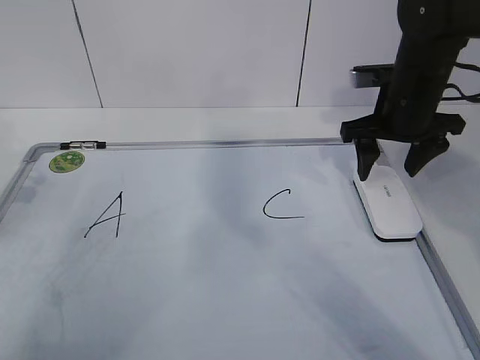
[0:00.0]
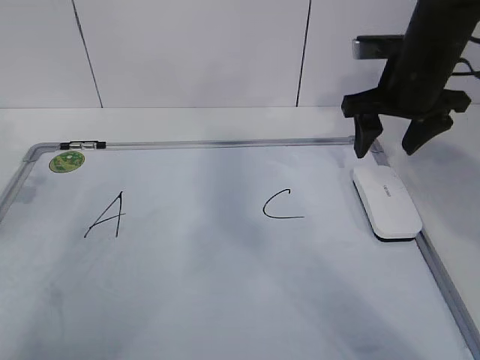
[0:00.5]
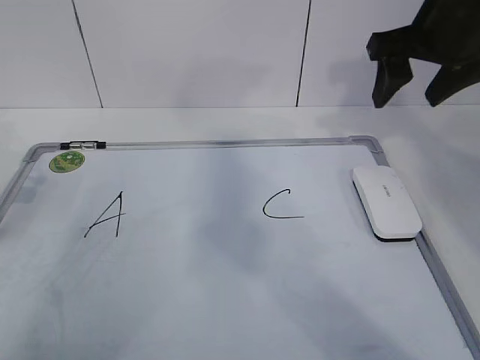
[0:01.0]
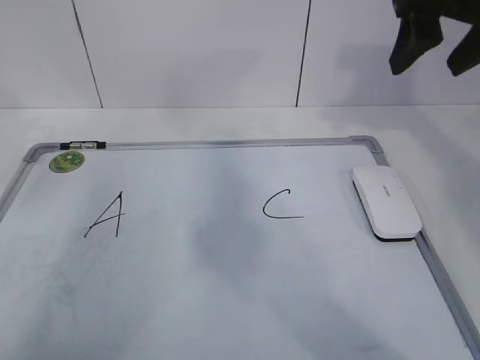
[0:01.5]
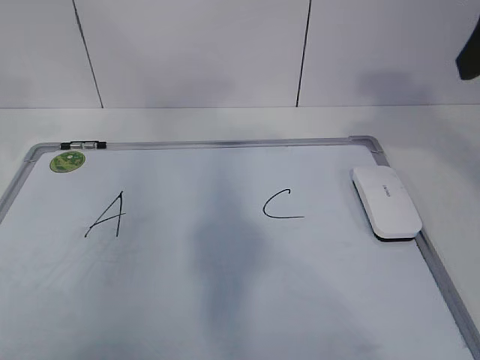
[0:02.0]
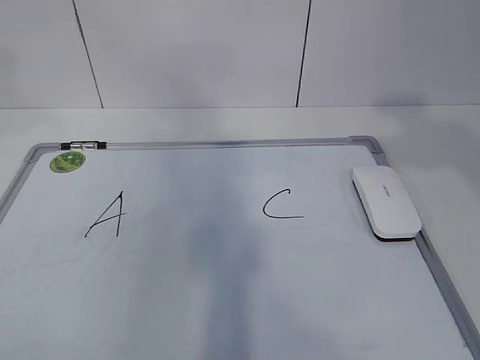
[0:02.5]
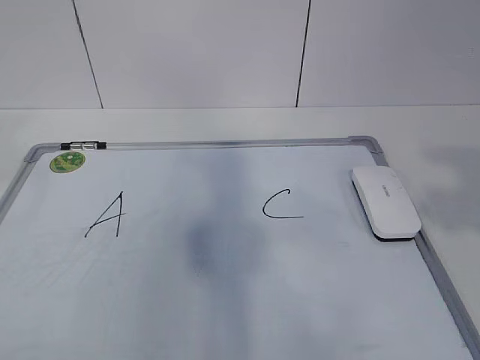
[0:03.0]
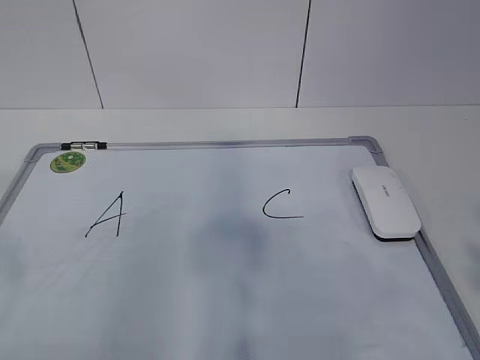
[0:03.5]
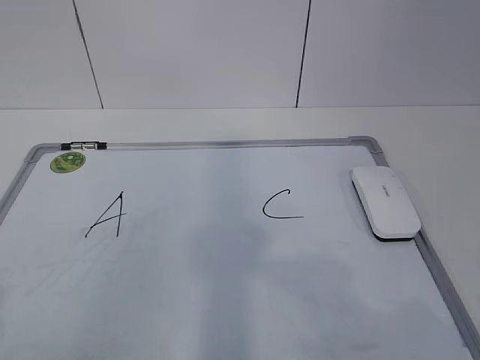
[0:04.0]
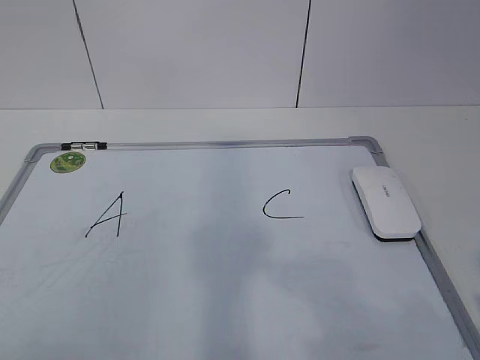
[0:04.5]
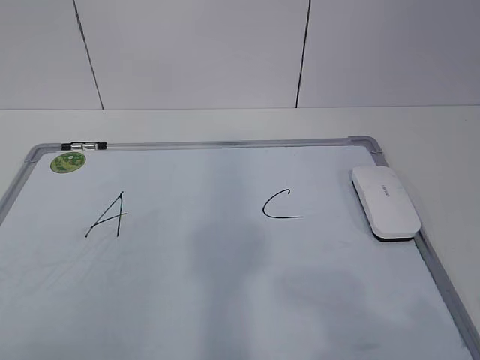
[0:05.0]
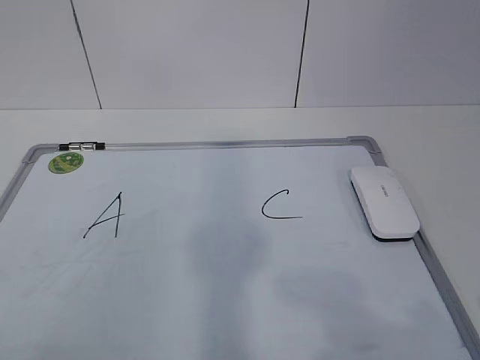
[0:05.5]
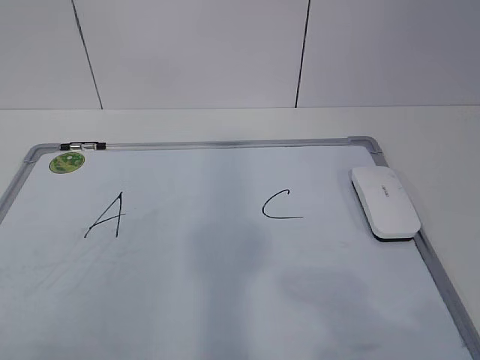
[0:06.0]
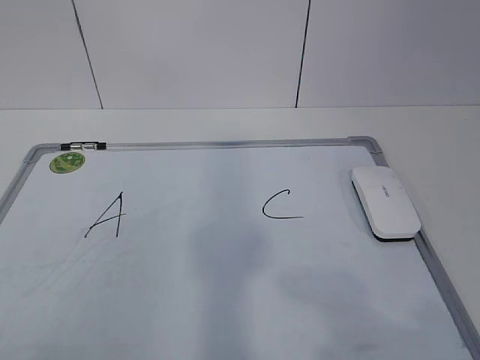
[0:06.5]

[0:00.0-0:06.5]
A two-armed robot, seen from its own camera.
Task of the whole recording: pick up the eraser on the blackboard and erase the letter "B".
0:00.0 to 0:02.0: The right gripper shifts roughly 25 cm upward and backward; the left gripper heads upward, covering about 15 cm, and opens.
0:02.0 to 0:04.5: The right gripper is displaced backward and downward by roughly 30 cm.
